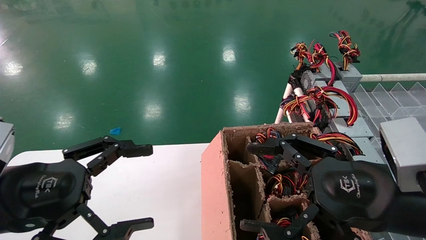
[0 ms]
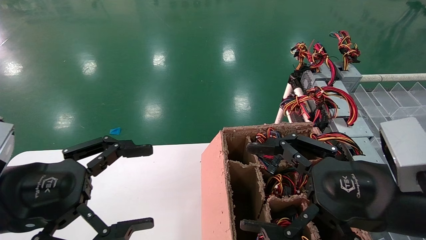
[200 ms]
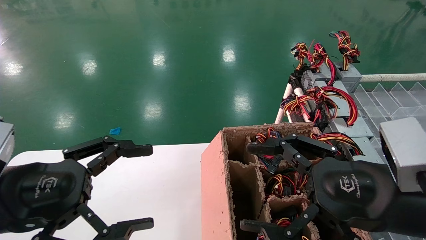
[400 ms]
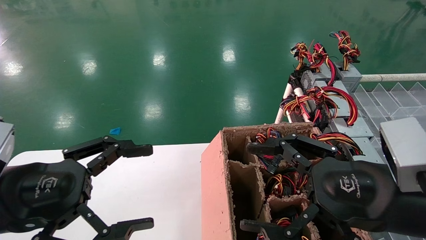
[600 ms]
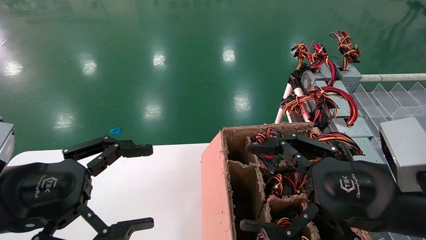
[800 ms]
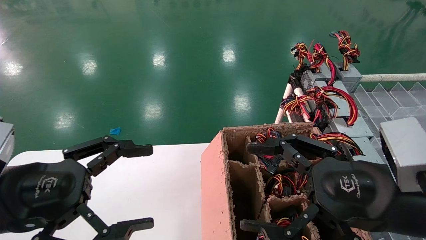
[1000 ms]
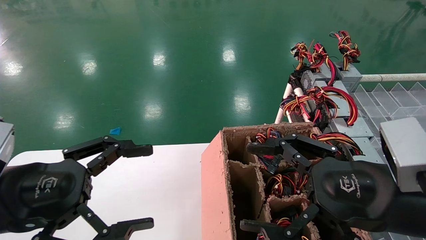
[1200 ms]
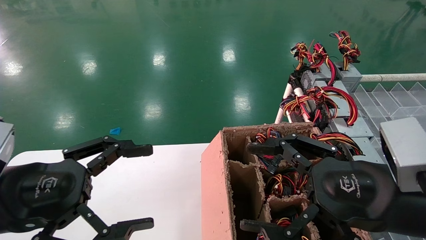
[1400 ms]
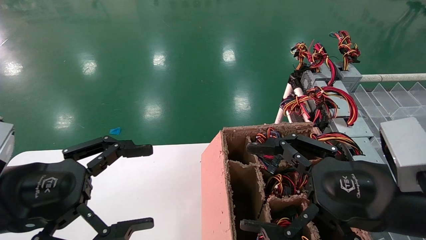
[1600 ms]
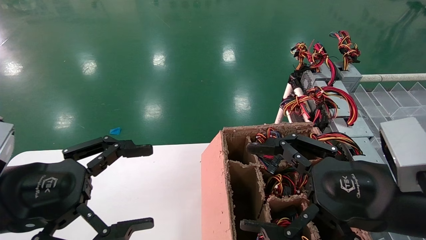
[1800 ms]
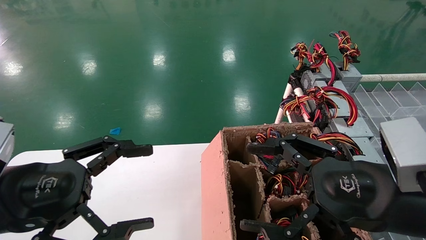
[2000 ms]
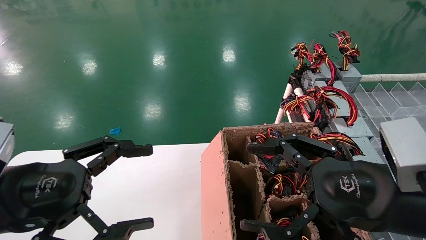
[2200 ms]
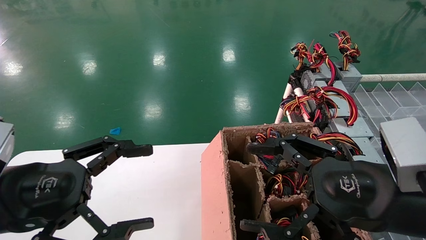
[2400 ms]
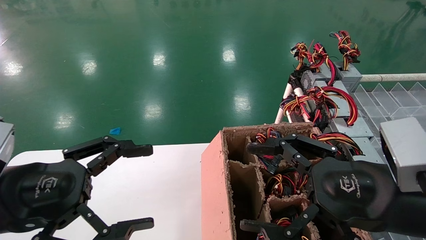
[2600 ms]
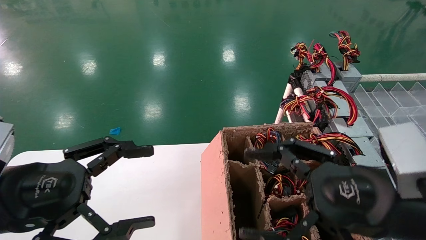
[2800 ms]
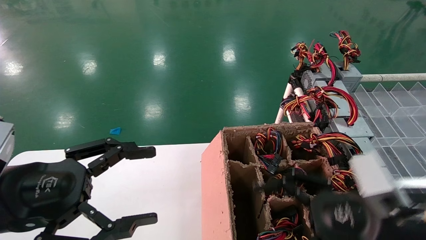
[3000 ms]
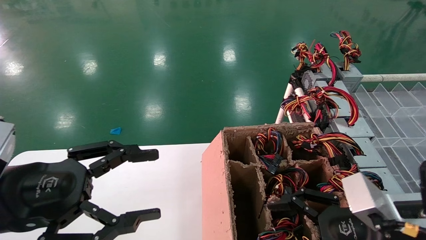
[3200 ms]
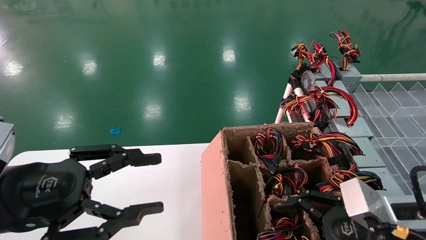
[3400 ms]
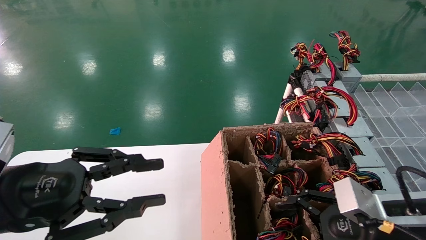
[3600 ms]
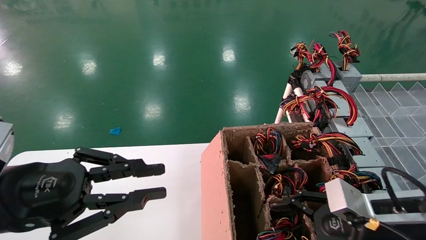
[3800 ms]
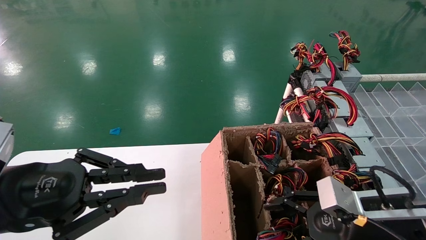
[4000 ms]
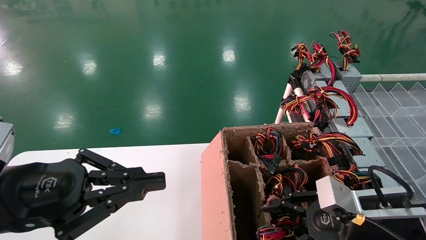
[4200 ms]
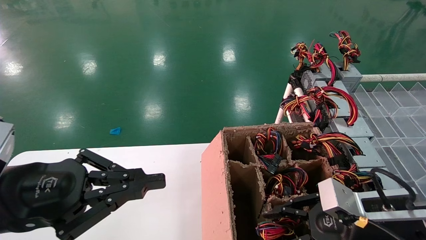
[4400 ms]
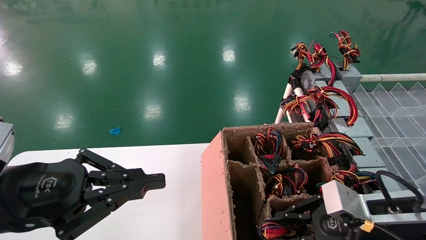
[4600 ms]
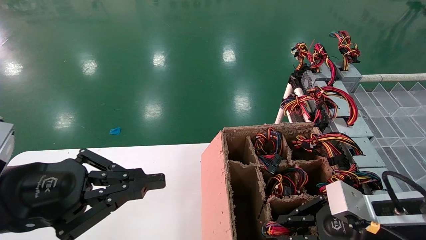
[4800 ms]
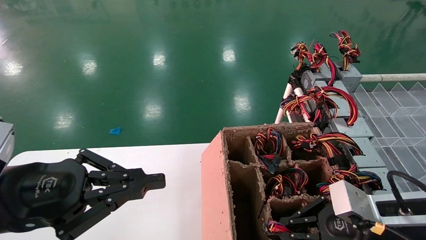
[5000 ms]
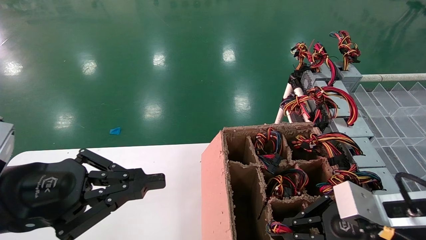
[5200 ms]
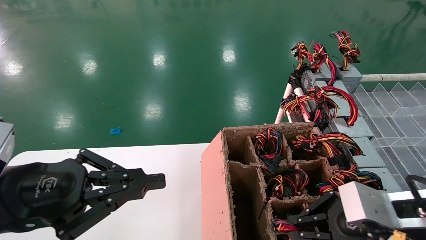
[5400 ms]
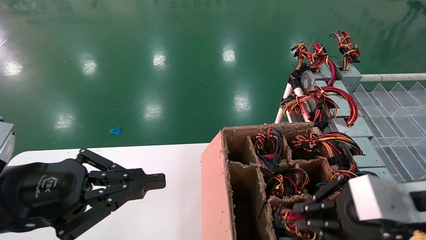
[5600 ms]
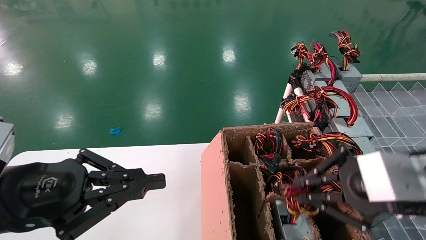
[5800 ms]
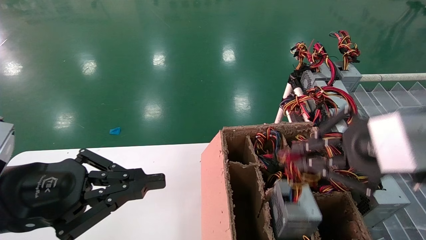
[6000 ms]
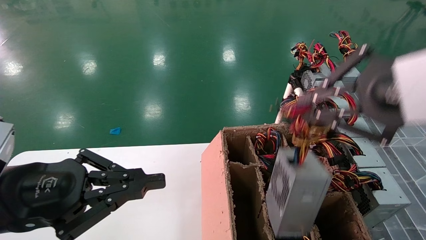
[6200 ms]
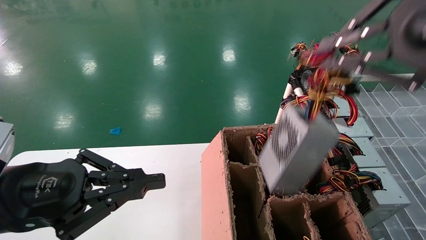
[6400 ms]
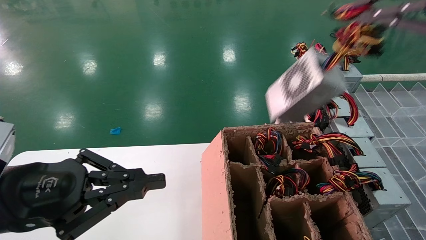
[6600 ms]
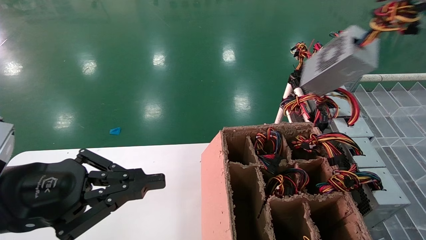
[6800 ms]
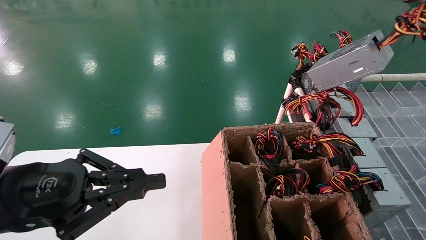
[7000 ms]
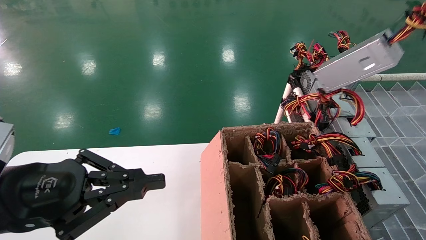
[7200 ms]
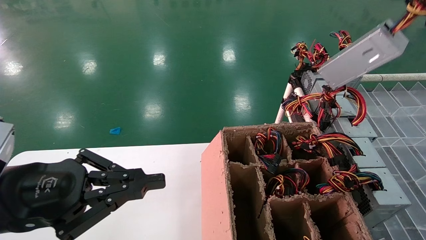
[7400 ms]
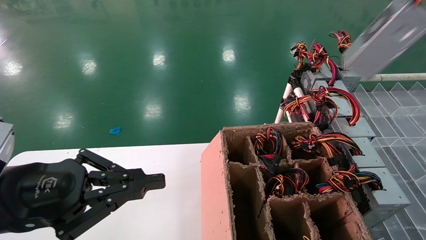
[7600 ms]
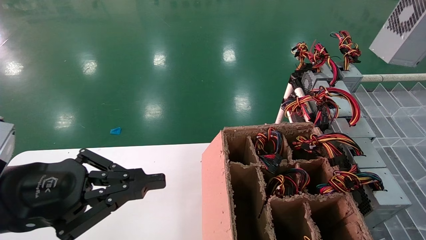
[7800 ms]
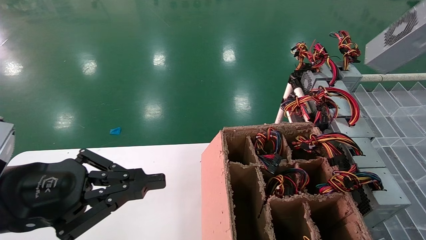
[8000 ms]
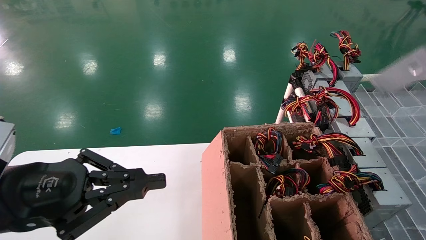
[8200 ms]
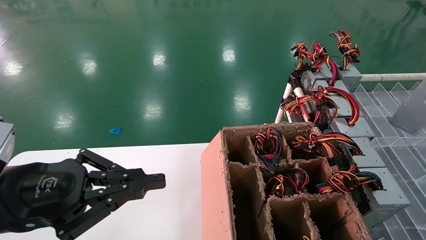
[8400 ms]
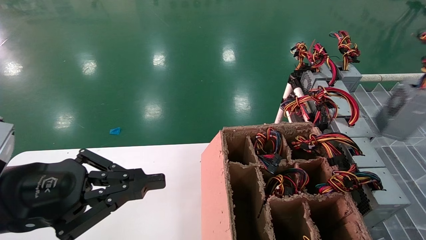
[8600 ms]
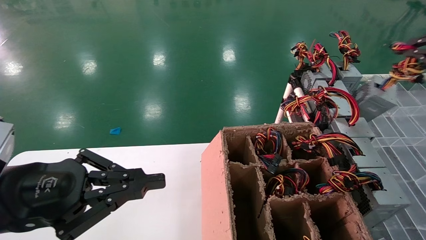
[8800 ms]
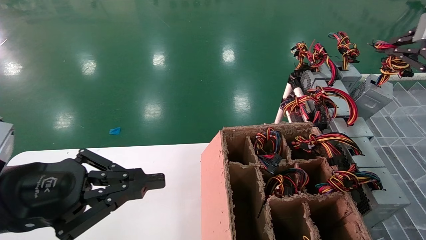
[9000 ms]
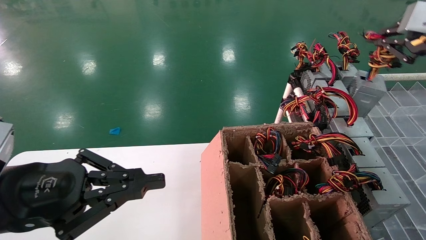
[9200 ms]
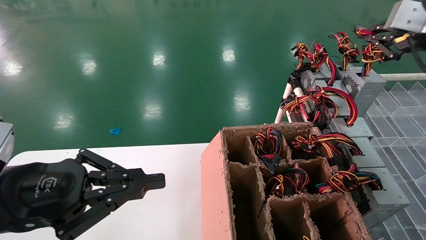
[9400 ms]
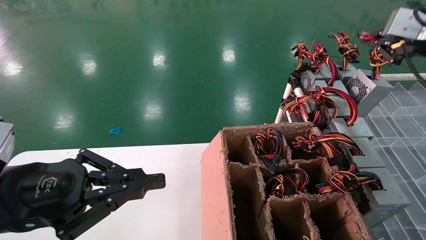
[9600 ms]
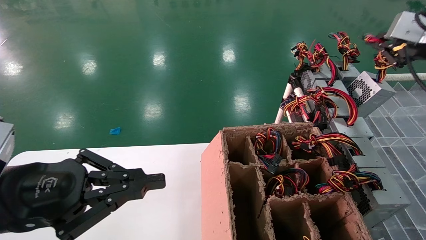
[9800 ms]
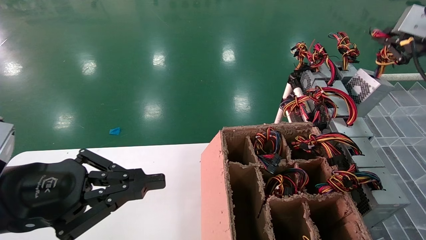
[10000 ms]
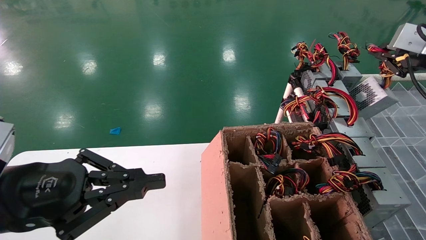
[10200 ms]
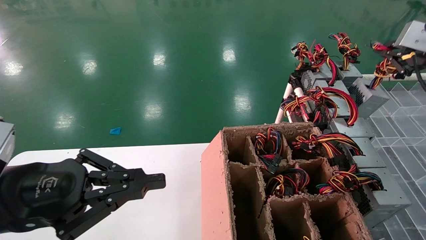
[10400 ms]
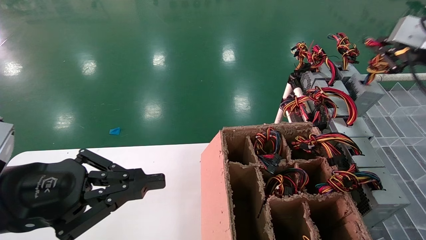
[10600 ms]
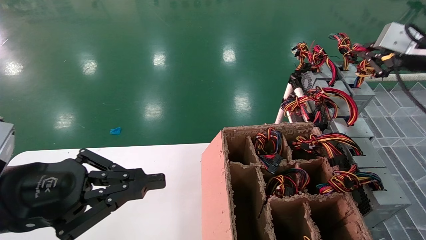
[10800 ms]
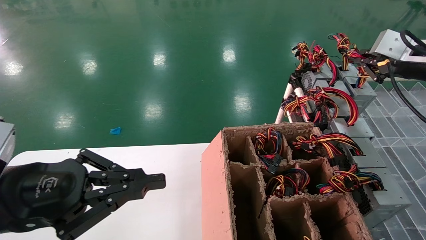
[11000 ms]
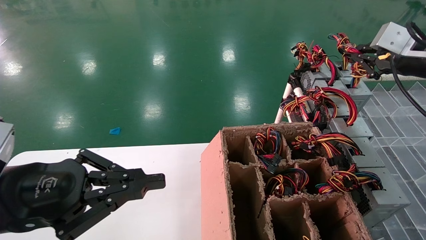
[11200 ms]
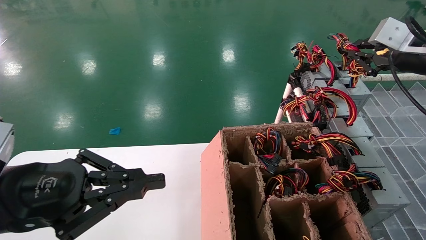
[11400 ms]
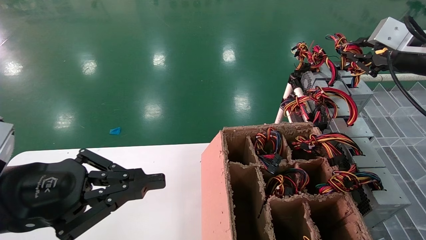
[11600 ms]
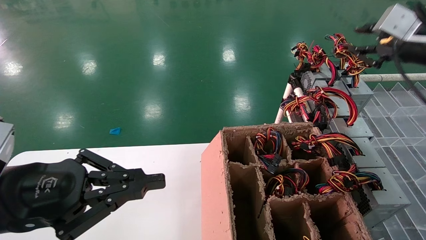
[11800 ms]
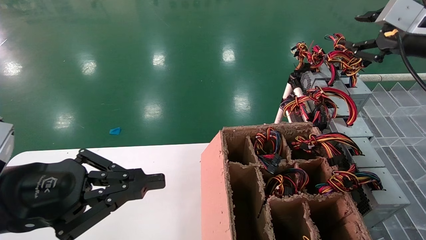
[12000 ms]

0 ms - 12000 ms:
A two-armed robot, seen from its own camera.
Step, 3200 ms - 5000 ms: Grab the main unit power supply from the containment box.
0 ms - 1600 ms: Both grippers stay put.
1600 ms - 3000 ms: The grippers make only small movements.
3000 ms - 4400 ms: The right gripper ends up some 5 cm from where it was, and closes up. The left gripper closes its fingers.
4400 ms - 6000 ms: The right gripper is displaced upward by some 20 cm, and closes up.
6000 ms - 7600 ms: The right gripper moves upward and to the right, some 25 cm.
7600 ms - 9000 ms: The right gripper goes approximately 20 cm downward and forward.
9000 ms - 10400 ms: The right gripper moves forward, roughly 5 cm.
10400 ms - 12000 ms: The right gripper opens up.

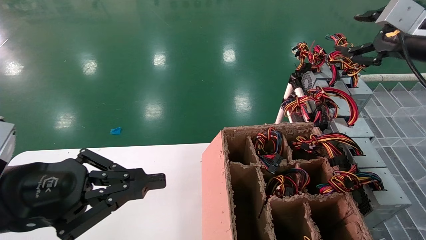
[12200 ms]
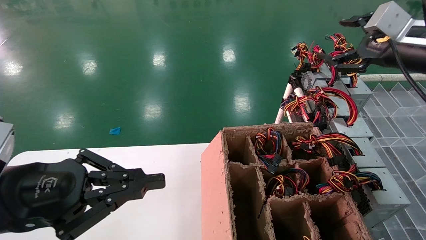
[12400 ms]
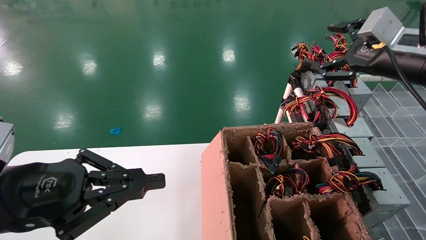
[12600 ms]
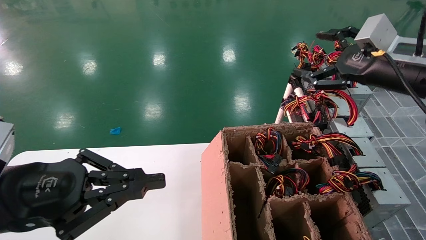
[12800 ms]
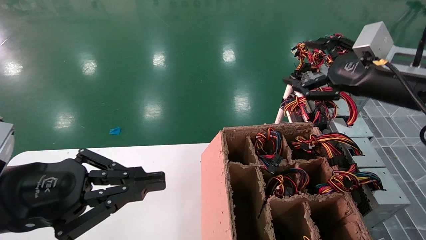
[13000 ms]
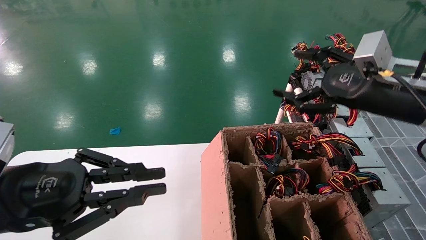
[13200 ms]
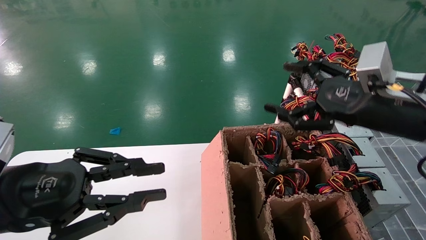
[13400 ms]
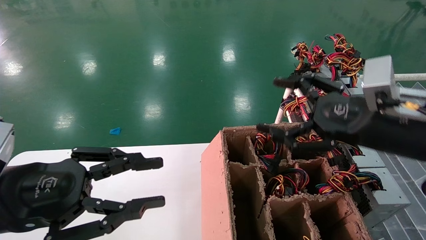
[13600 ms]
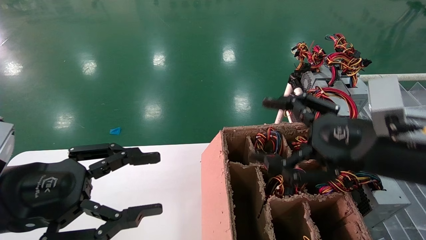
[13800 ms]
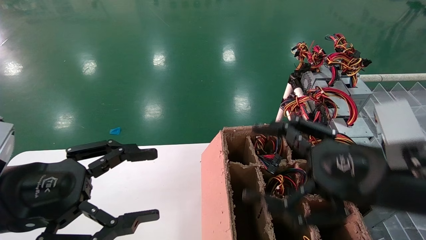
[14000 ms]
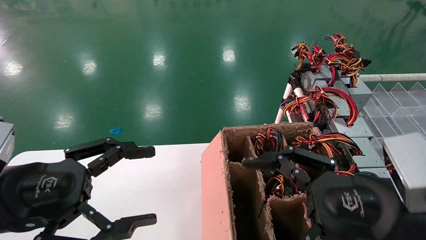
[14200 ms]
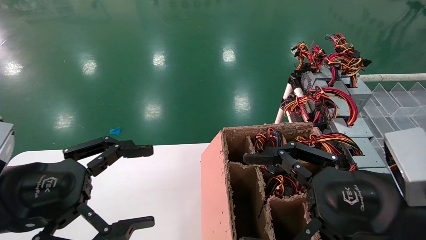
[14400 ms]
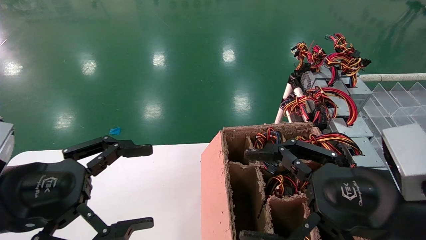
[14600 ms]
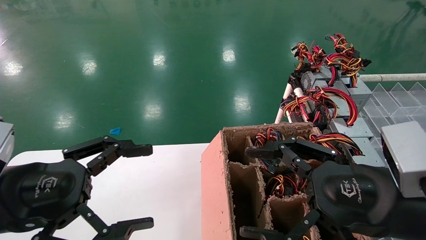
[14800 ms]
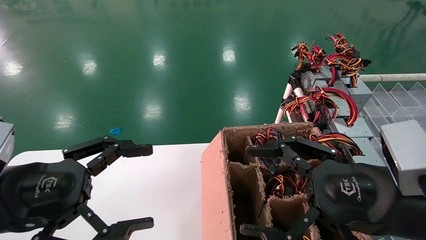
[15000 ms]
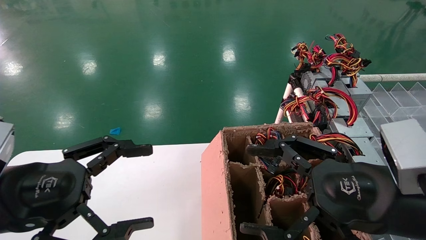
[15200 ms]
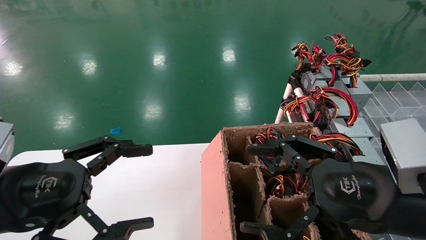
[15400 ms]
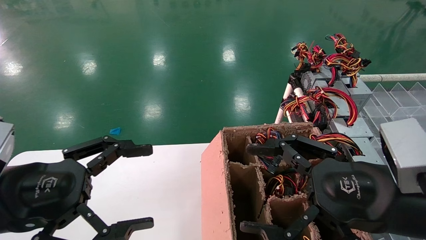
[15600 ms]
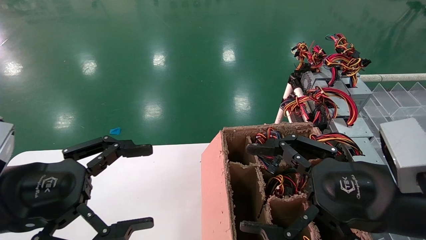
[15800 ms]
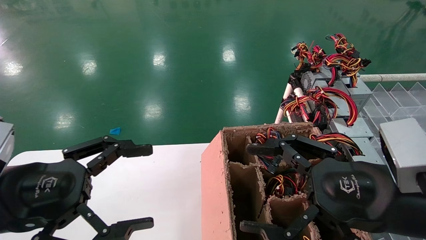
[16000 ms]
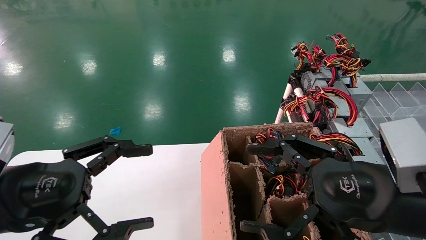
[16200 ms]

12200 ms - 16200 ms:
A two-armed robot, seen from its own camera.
12200 ms - 13600 ms: The right gripper moves to the left, downward and backward, about 20 cm, and opens up.
13600 ms - 14800 ms: The right gripper goes approximately 10 cm backward, while the left gripper opens.
14800 ms - 16200 ms: Both grippers stay about where they are.
